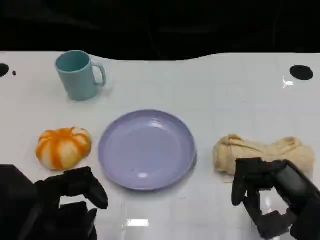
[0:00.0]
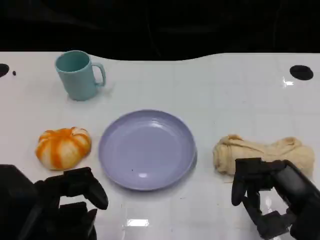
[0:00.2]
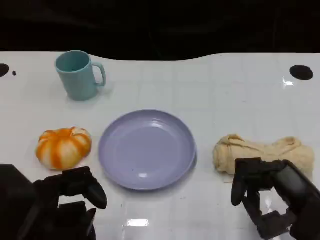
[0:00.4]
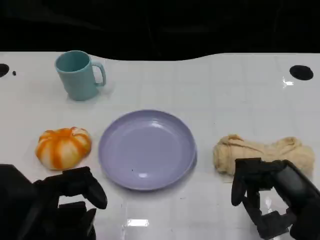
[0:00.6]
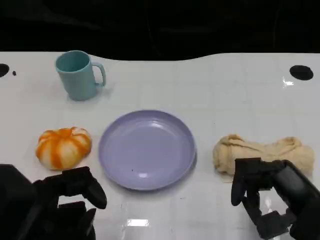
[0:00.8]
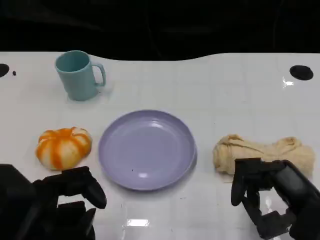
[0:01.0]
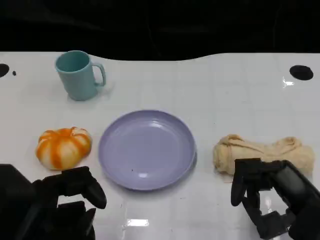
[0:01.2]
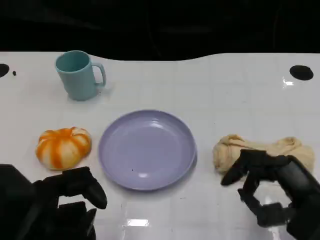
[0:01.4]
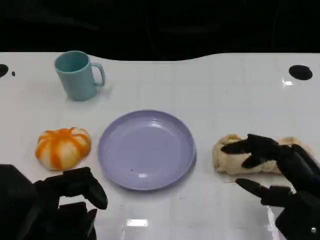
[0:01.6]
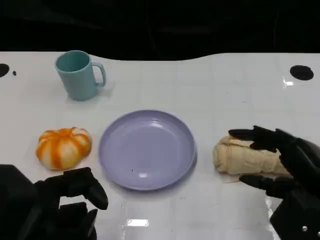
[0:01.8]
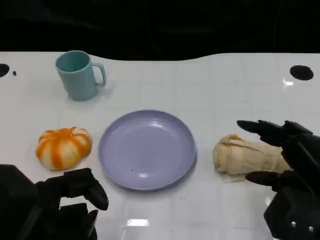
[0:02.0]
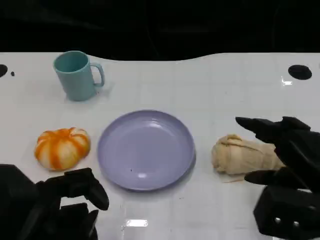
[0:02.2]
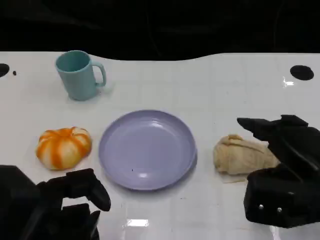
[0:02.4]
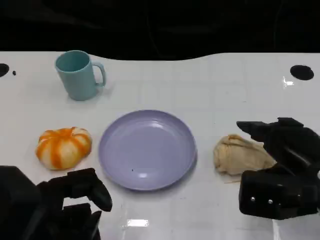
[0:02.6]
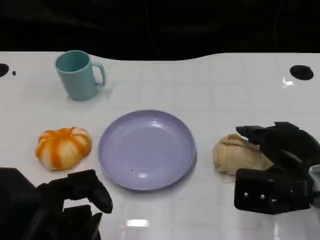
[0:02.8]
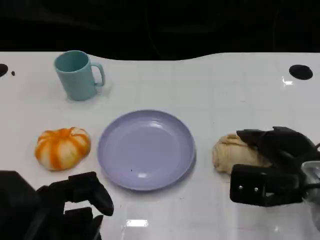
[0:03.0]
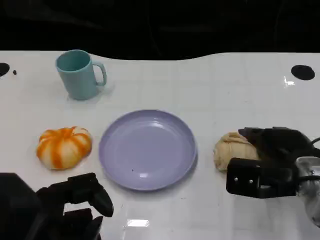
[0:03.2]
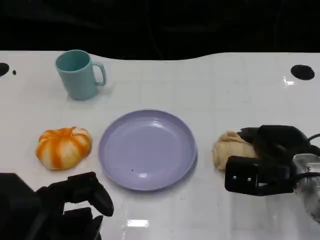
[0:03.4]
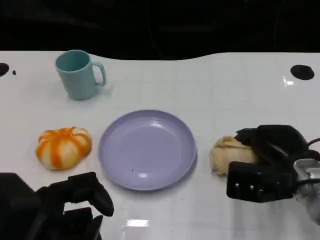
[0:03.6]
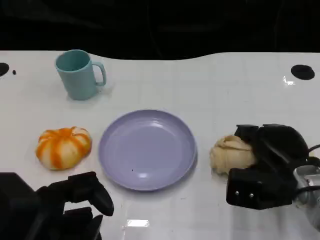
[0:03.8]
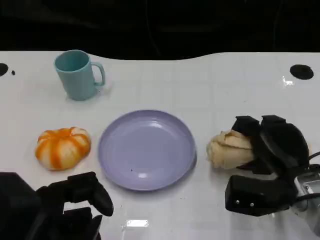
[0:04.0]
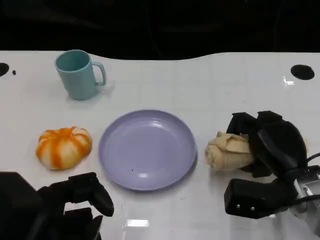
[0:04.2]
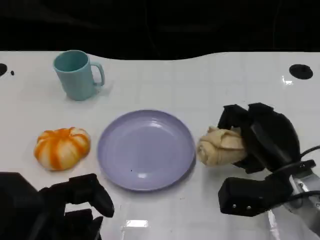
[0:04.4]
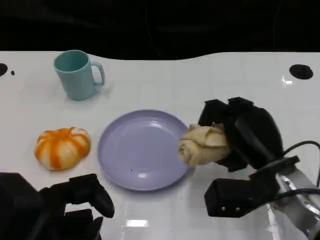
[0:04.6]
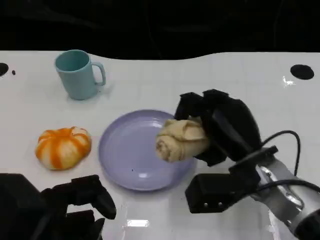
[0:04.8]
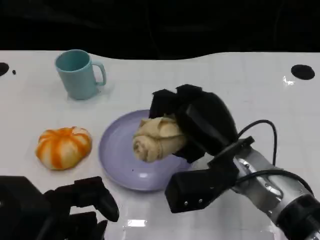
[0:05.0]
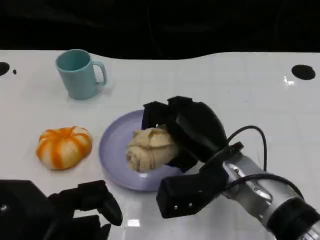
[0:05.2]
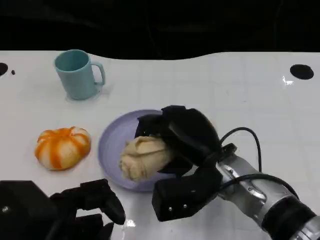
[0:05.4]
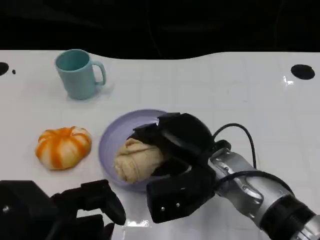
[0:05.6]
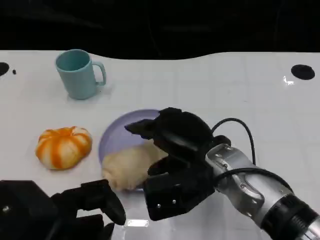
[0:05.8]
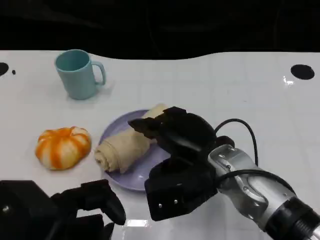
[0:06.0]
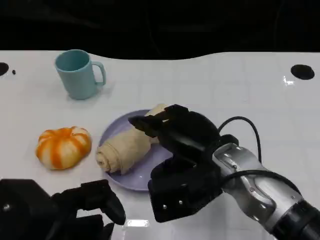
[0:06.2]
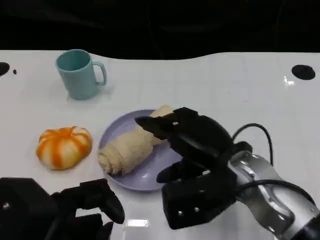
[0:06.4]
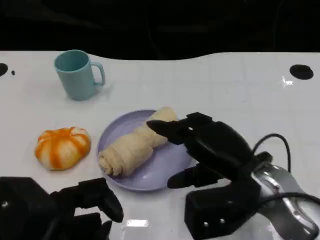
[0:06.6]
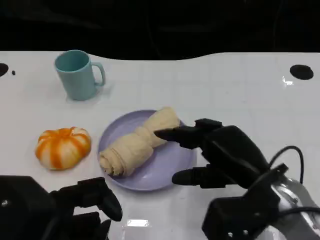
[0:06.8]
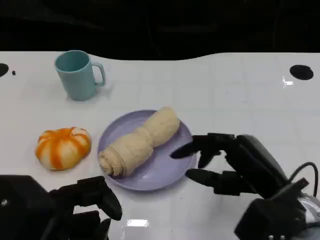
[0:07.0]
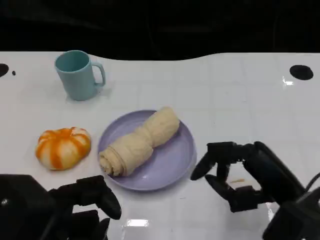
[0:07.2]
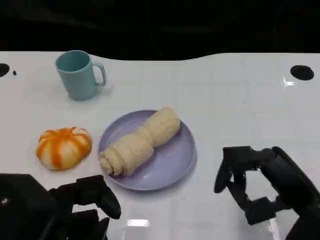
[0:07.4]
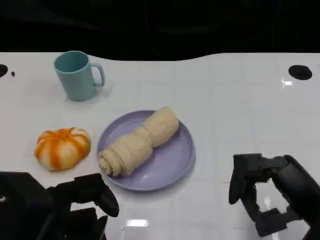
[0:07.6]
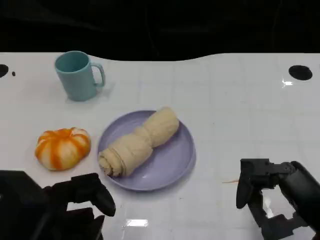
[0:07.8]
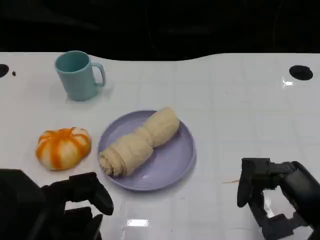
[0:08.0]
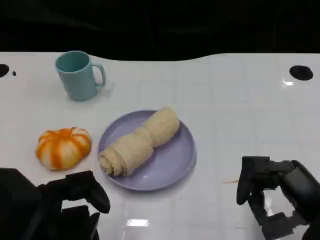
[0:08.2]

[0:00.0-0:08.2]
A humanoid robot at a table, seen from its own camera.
Task of the whole recording: Grasp the towel on the left side of the plate with the left hand and place it into the plate.
0:00.0 to 0:01.6: The hands stay close to where they were, moving slightly.
0:01.6 to 0:03.2: The right hand shifts approximately 10 cm forward.
0:03.2 to 0:05.0: The right hand travels to the left by roughly 10 cm.
0:05.0 to 0:06.6: The right hand shifts by roughly 5 cm.
0:06.6 to 0:08.2: The right hand goes some 10 cm to the right and backward.

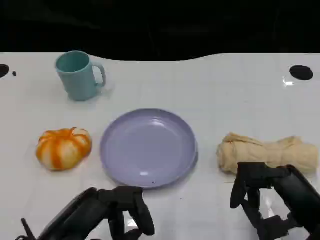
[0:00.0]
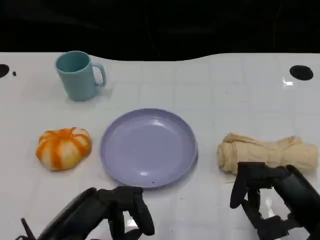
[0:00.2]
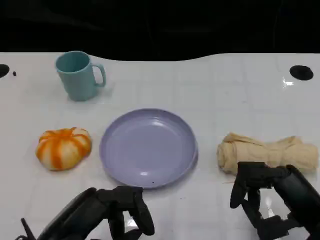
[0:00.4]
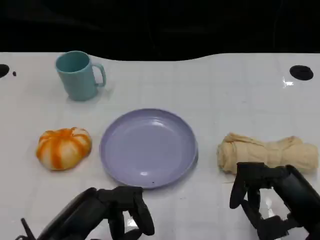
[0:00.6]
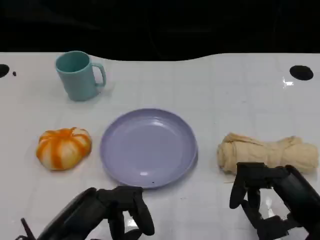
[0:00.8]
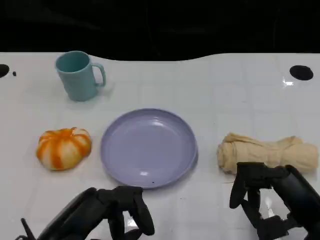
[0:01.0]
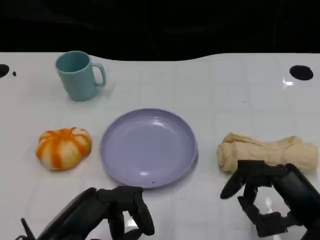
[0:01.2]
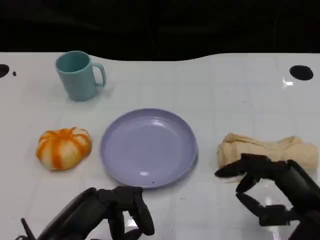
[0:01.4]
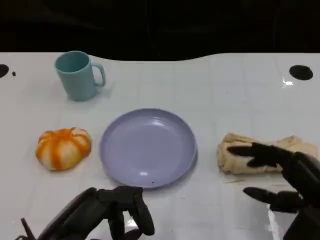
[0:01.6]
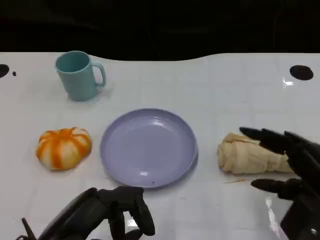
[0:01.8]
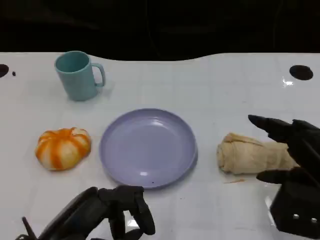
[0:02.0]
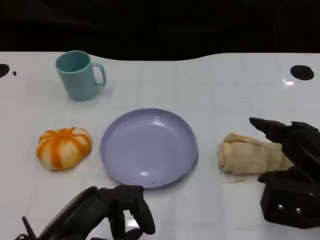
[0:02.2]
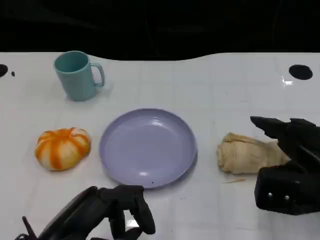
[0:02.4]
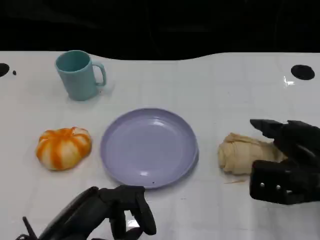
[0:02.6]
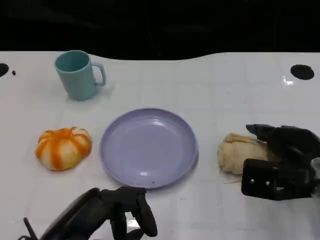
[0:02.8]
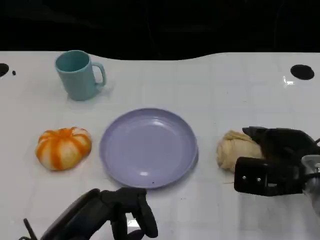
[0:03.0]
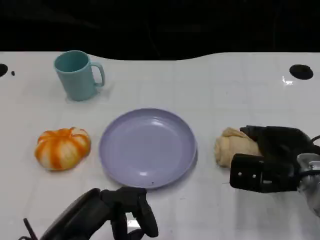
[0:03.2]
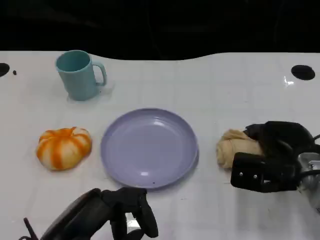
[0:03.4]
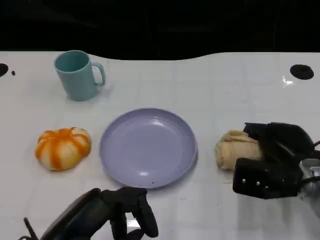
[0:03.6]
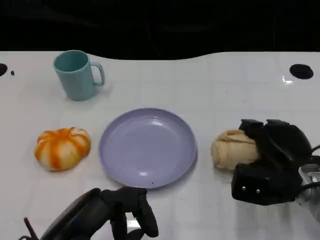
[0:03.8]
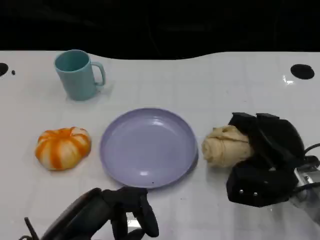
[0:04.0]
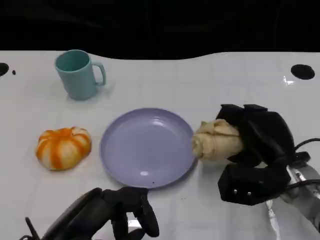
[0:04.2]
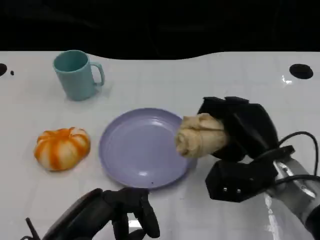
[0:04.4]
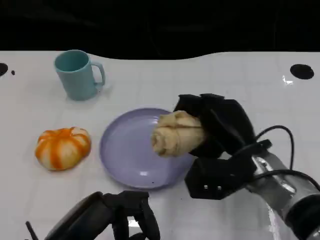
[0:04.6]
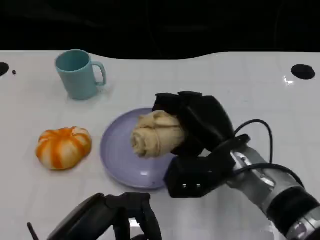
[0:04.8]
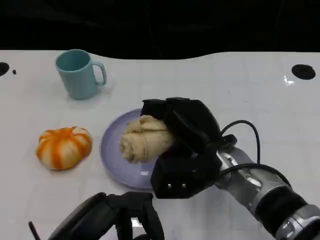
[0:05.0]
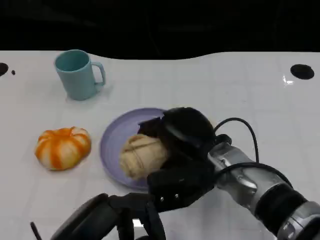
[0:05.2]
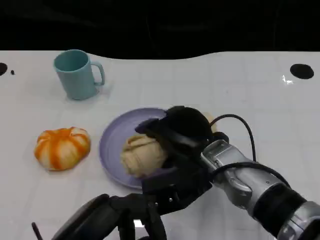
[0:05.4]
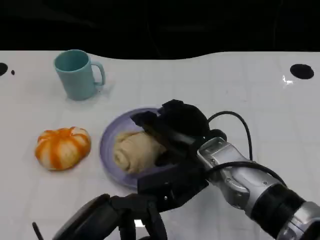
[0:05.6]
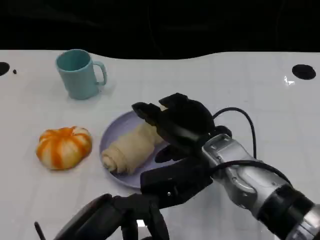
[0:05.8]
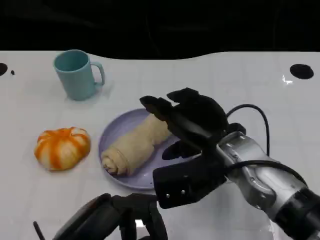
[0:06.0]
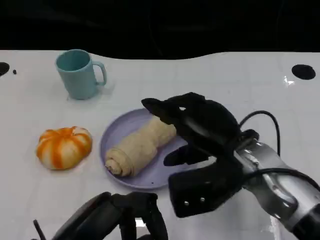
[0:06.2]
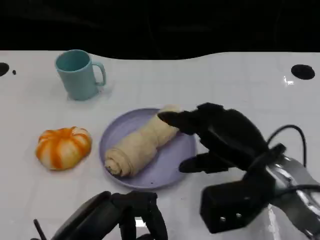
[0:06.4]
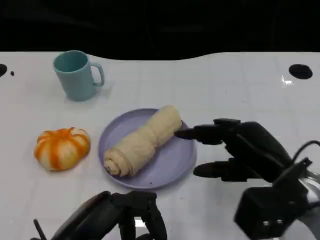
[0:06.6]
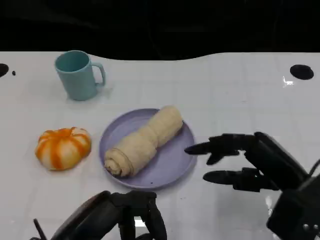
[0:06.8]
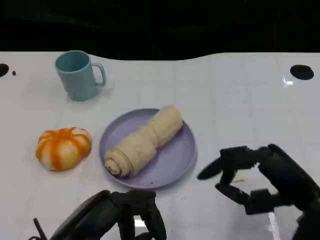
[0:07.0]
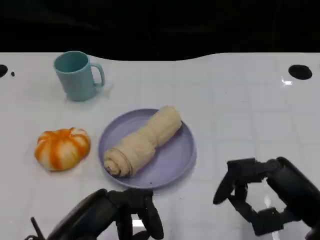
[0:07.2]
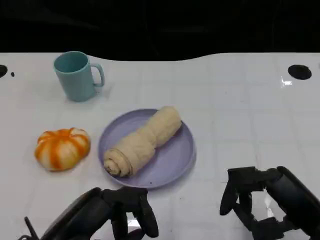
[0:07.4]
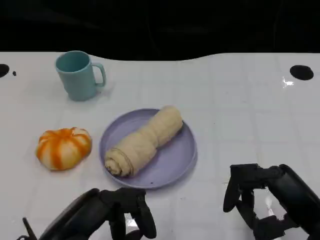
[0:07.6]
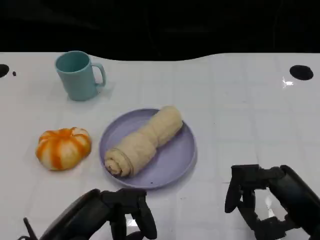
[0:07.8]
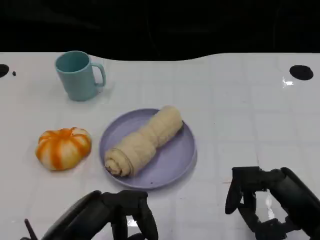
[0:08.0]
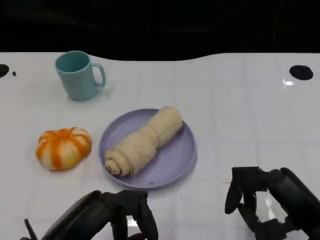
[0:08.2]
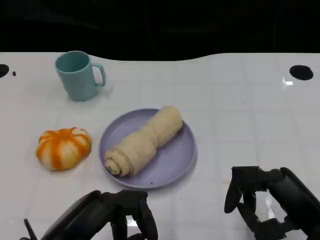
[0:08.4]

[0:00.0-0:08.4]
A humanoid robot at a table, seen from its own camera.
Task of the whole recording: Grasp the towel on the left side of the plate with the left hand and place it into the plate.
0:00.0 to 0:01.4: The hands make only small movements.
0:01.4 to 0:02.8: The right hand heads forward, covering roughly 10 cm.
0:04.2 to 0:05.6: The right hand moves to the left, some 10 cm.
0:05.6 to 0:07.0: The right hand shifts roughly 15 cm to the right and backward.
0:07.0 to 0:08.4: The hands stay close to where they were, moving slightly.

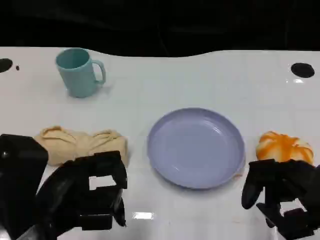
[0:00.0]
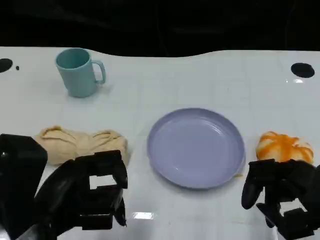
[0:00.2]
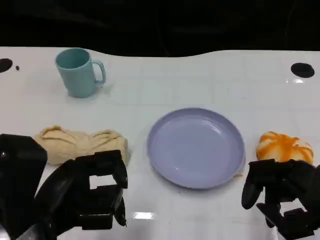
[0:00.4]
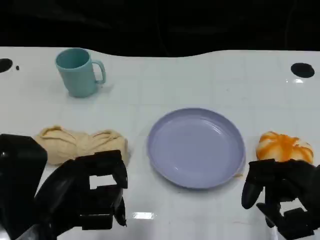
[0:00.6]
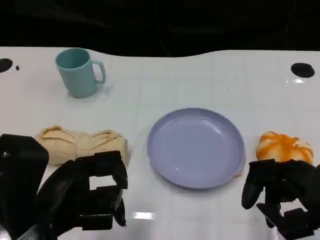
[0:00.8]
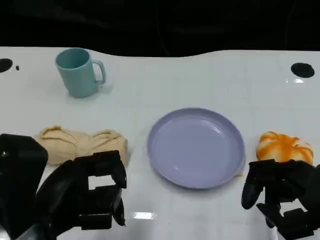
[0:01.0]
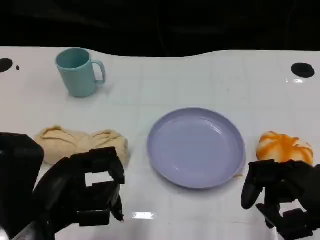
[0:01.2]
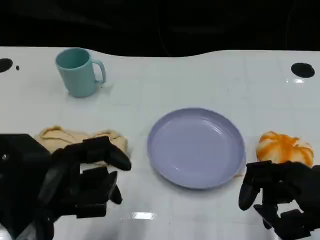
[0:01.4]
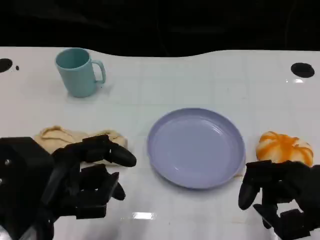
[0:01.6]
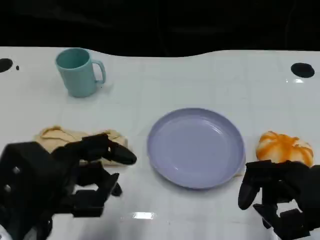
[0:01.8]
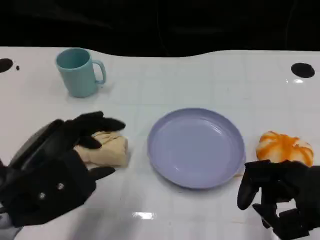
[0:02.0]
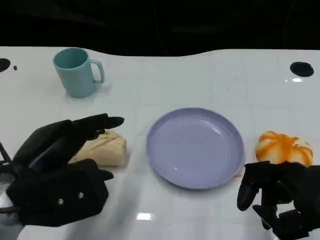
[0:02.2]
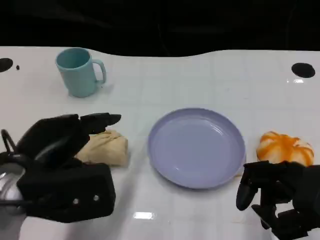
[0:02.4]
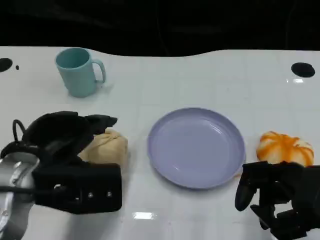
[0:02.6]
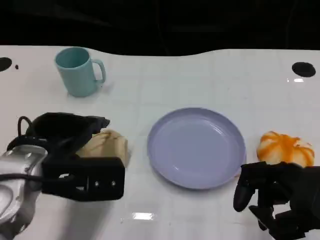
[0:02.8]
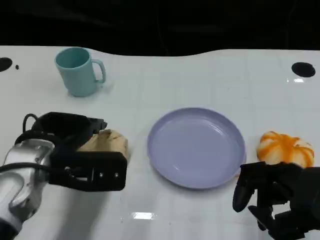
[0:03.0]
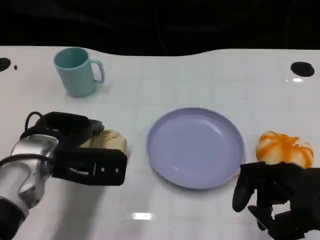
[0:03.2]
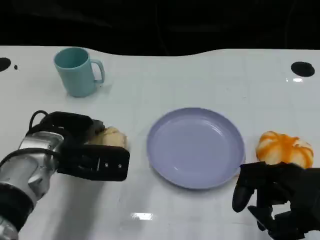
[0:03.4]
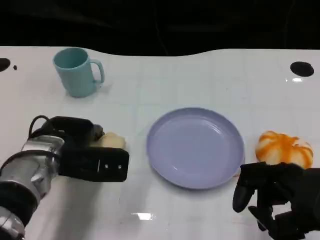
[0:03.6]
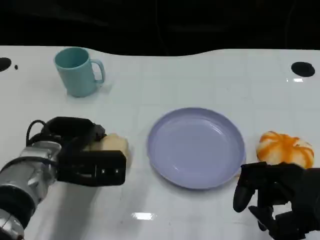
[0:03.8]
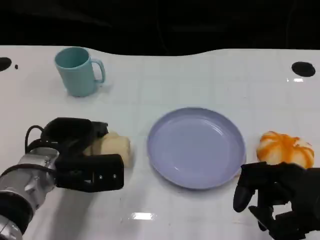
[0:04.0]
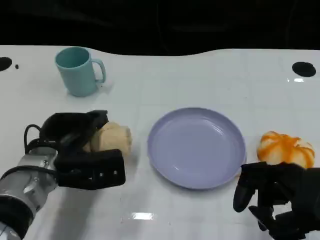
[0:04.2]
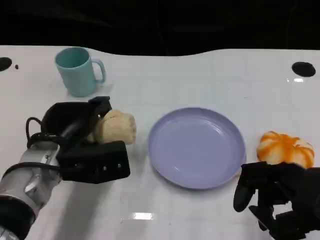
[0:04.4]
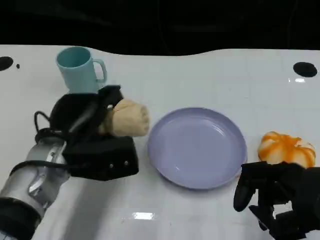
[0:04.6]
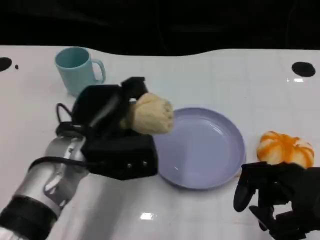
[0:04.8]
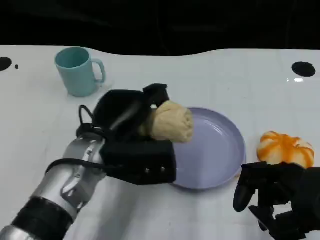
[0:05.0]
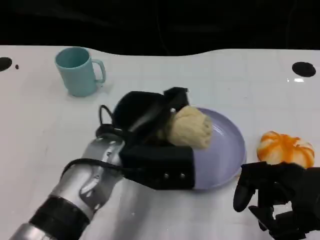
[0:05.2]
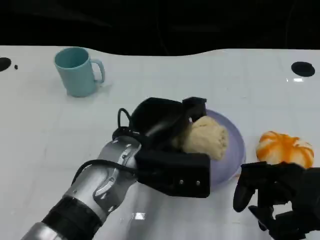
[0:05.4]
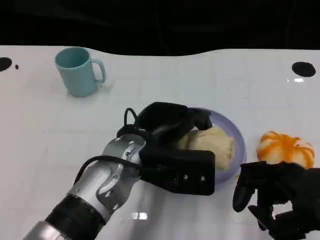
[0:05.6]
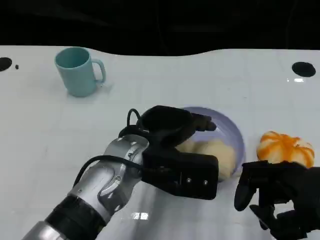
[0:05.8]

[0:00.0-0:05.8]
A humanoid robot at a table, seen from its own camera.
Task of the whole recording: Grasp the towel on the left side of the plate with the left hand and place it into the plate.
0:00.0 to 0:01.4: The hands make only small movements.
0:01.4 to 0:02.8: The left hand is displaced forward by some 10 cm.
0:02.8 to 0:04.4: The left hand moves about 5 cm.
0:04.4 to 0:05.8: The left hand moves to the right, approximately 10 cm.
